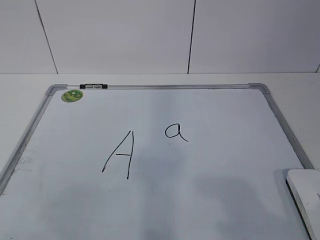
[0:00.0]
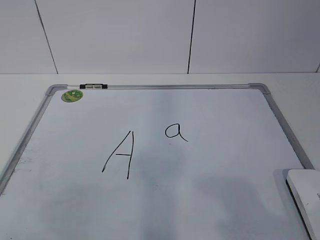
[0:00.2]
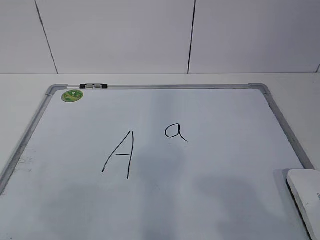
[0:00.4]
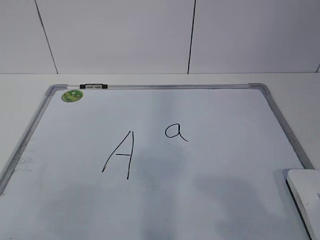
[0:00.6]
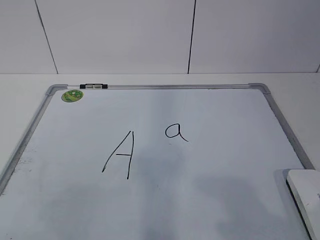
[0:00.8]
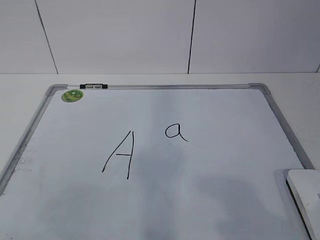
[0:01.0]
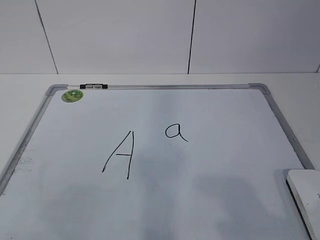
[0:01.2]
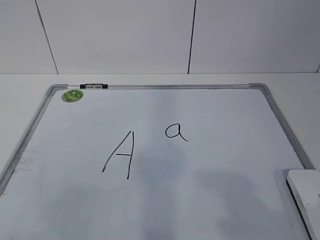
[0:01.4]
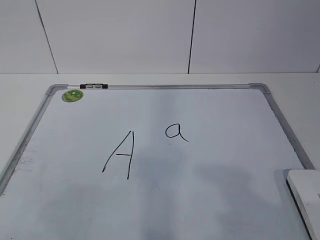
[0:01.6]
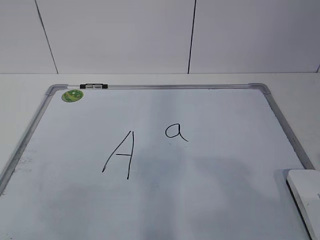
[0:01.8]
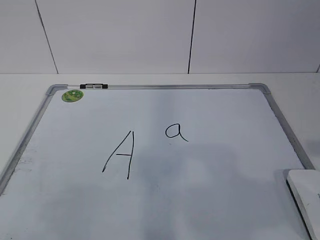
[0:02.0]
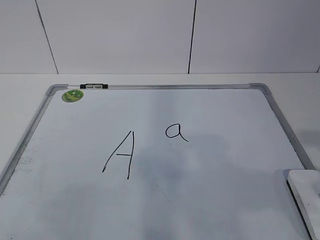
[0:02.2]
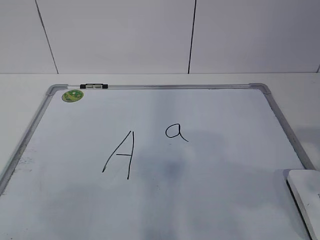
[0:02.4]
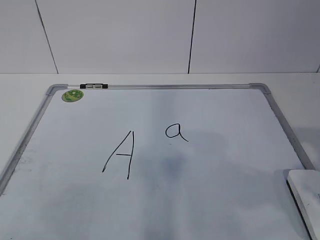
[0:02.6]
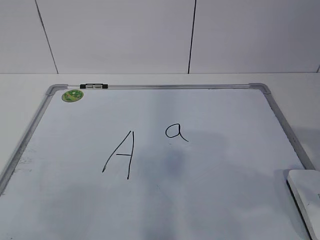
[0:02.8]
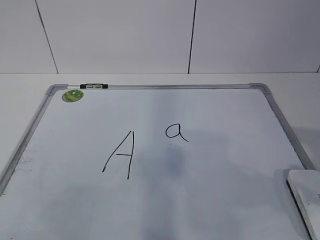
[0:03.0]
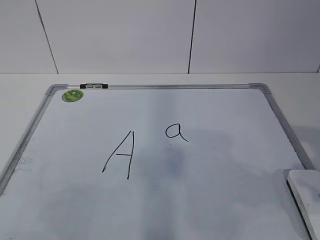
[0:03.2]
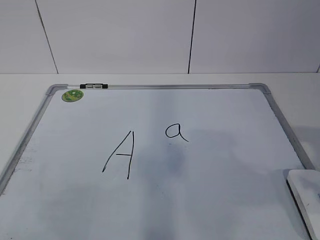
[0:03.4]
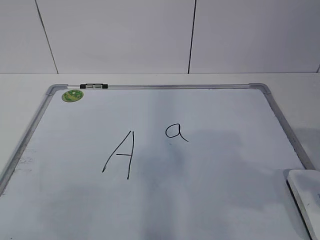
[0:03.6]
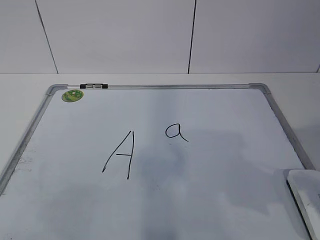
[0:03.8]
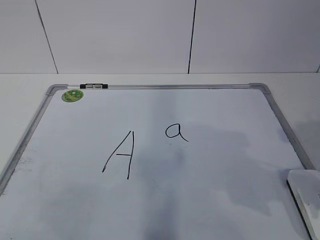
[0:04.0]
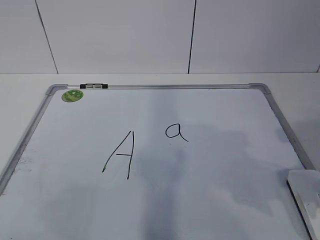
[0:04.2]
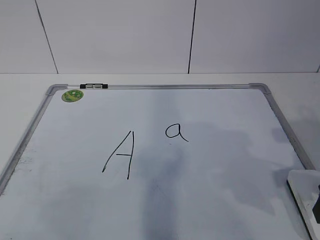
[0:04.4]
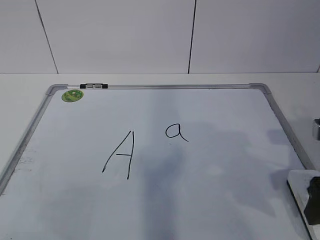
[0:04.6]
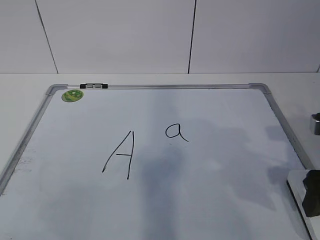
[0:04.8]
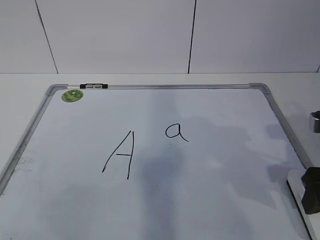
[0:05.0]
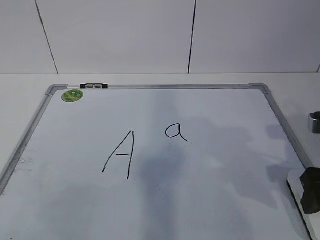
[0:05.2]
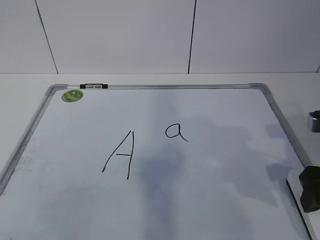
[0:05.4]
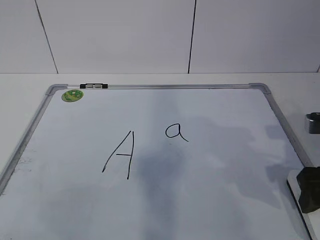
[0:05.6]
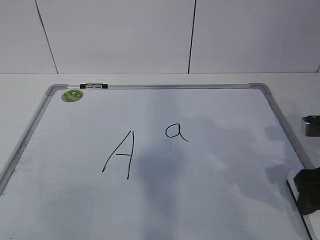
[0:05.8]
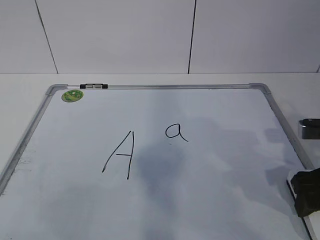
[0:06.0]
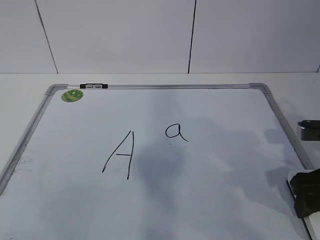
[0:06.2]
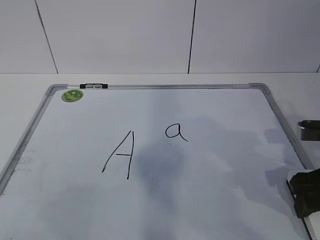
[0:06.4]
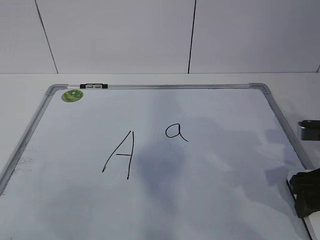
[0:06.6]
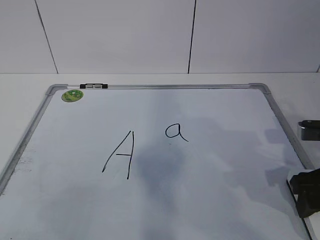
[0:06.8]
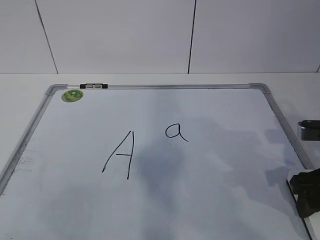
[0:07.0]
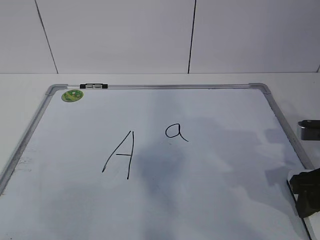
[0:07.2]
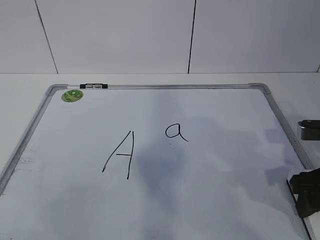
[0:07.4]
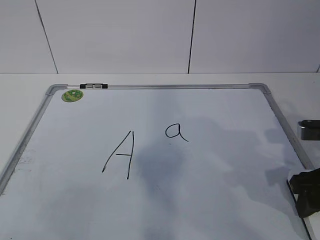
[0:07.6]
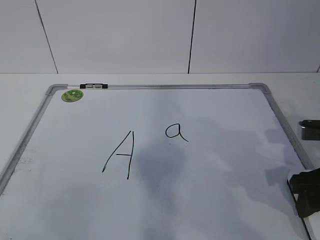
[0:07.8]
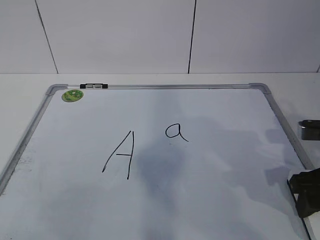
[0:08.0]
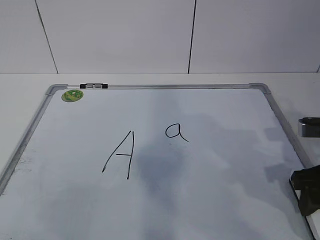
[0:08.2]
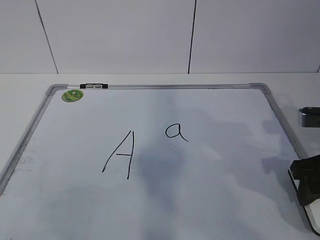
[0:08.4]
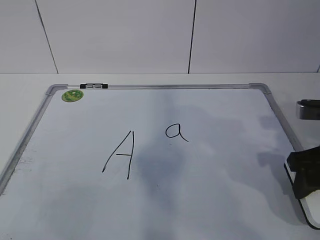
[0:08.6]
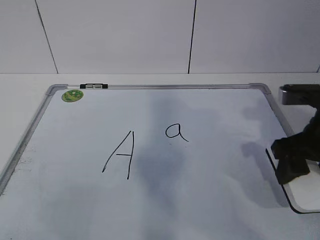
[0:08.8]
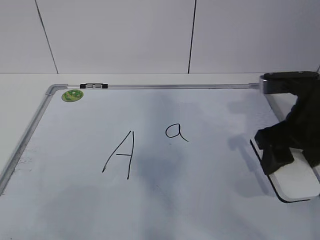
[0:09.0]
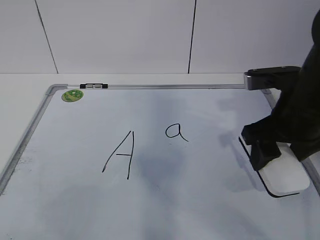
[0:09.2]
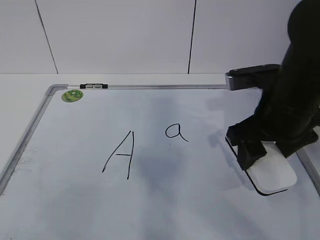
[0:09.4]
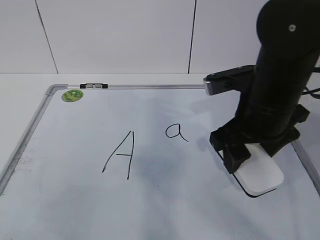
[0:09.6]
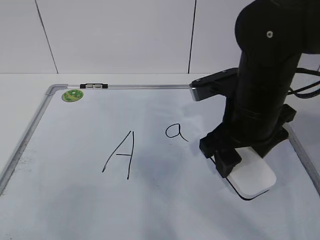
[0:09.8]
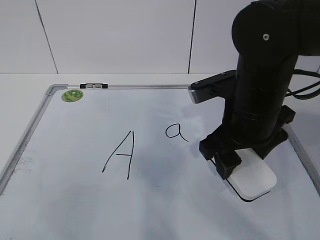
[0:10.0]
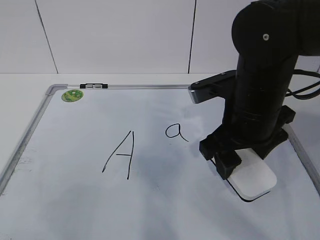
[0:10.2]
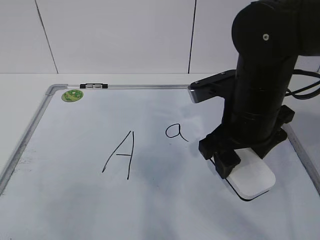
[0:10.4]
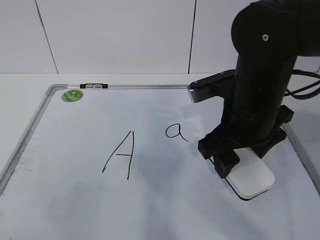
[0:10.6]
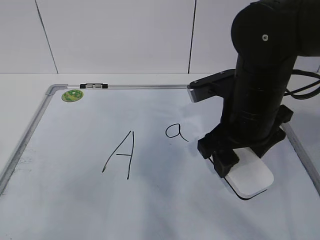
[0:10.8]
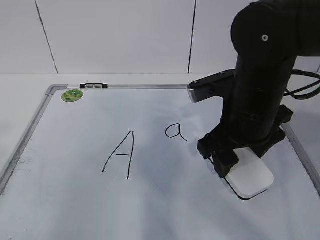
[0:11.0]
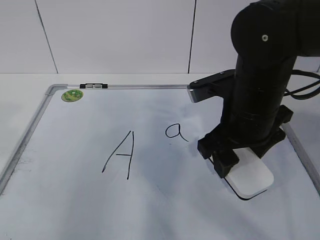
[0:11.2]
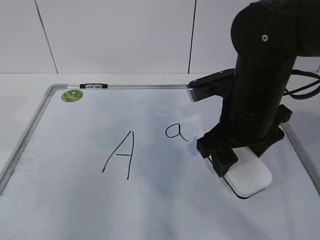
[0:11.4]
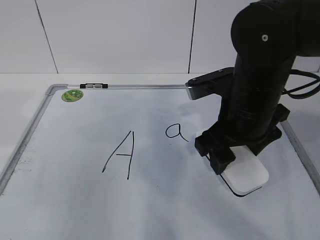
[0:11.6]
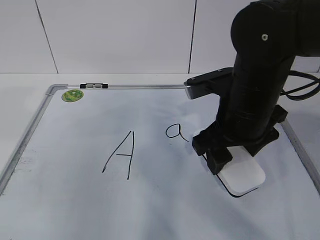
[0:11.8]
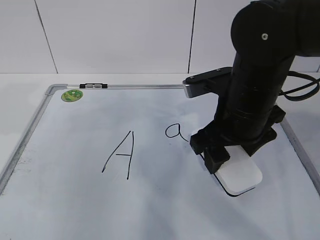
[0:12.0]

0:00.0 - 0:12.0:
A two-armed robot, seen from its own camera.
Task of the whole recording: pick up the eraser on the blackboard and erase the letter "a".
Step, 0:05.6 - 0:12.0: Hold the drawing board steady with your left hand.
0:04.4 - 0:06.0: The right gripper moves roughly 5 cm.
0:07.6 - 0:09.0: The right gripper is displaced upward and to the left by some 10 cm.
0:09.0 - 0:10.4: The right gripper is displaced to the left by about 10 cm.
0:10.4 - 0:12.0: The left gripper heads forward, covering some 25 cm.

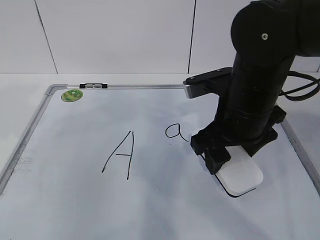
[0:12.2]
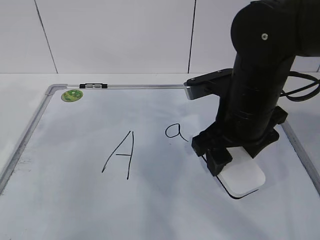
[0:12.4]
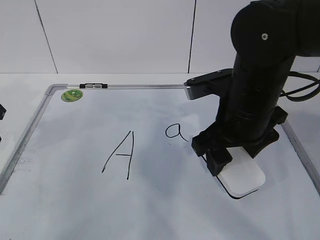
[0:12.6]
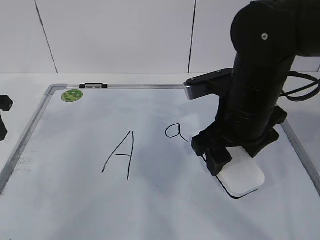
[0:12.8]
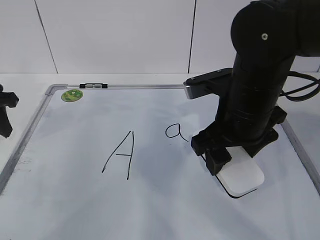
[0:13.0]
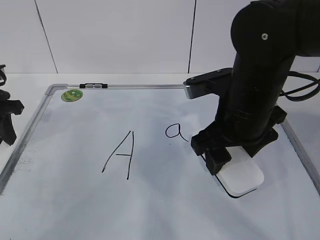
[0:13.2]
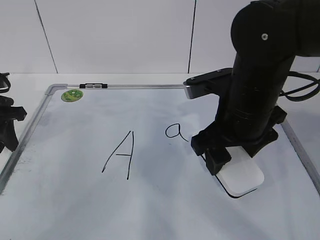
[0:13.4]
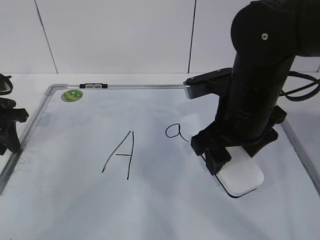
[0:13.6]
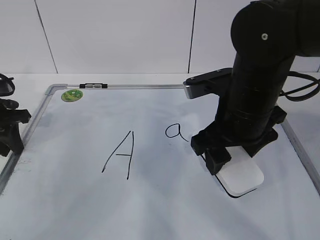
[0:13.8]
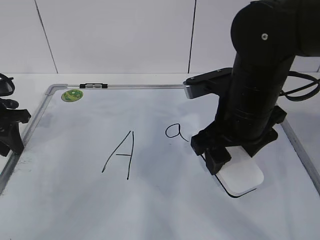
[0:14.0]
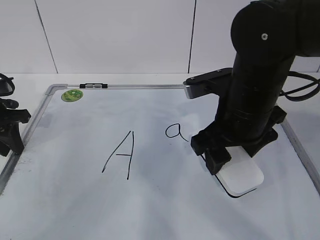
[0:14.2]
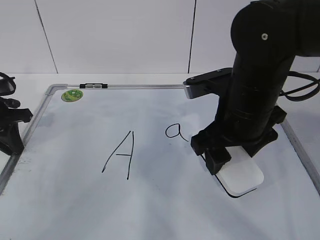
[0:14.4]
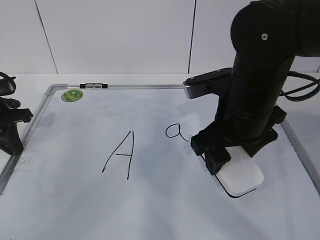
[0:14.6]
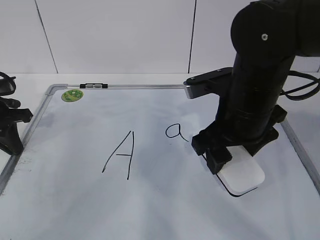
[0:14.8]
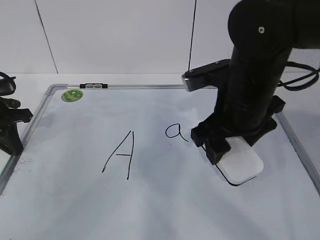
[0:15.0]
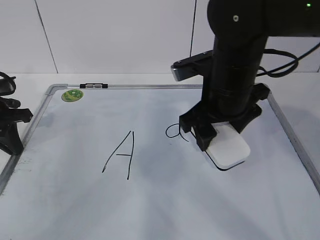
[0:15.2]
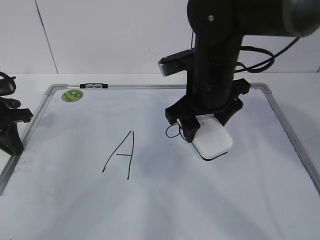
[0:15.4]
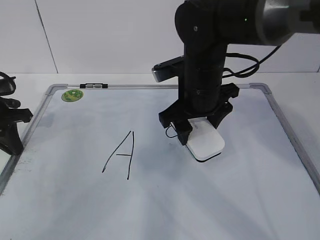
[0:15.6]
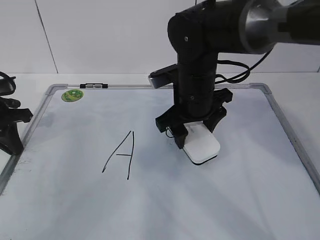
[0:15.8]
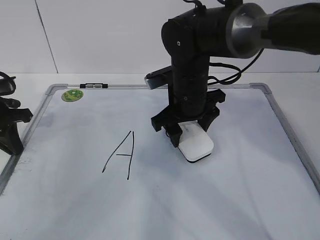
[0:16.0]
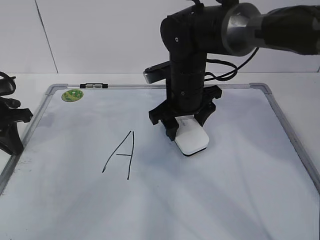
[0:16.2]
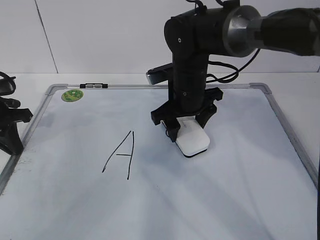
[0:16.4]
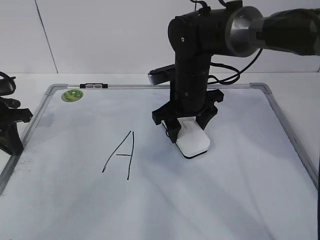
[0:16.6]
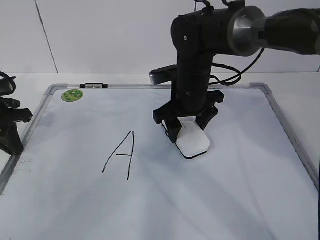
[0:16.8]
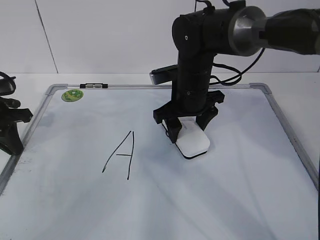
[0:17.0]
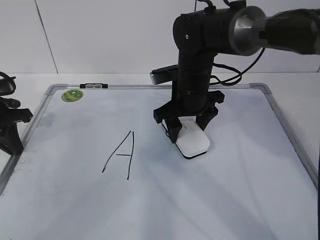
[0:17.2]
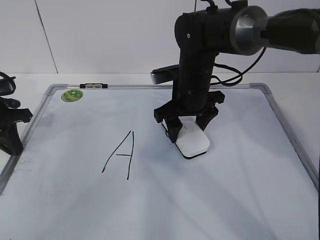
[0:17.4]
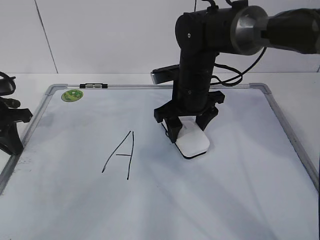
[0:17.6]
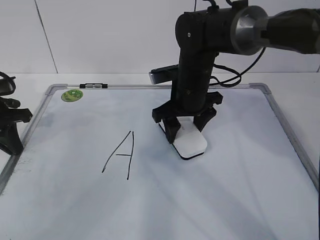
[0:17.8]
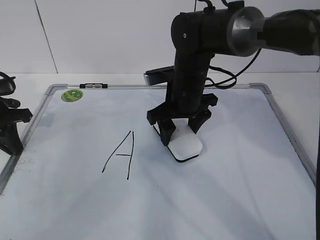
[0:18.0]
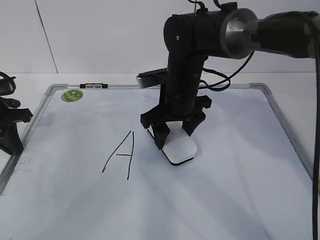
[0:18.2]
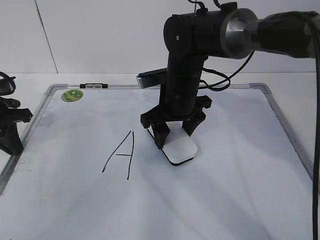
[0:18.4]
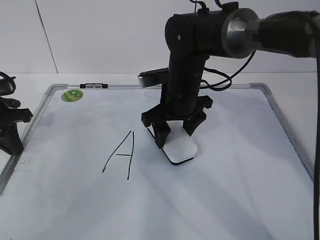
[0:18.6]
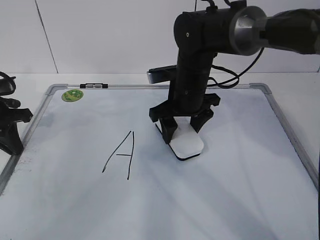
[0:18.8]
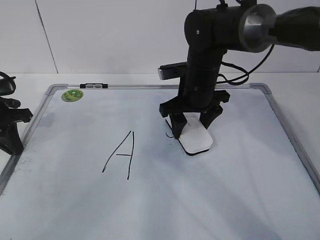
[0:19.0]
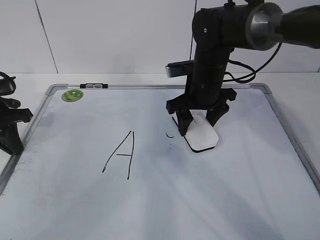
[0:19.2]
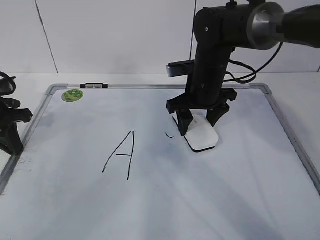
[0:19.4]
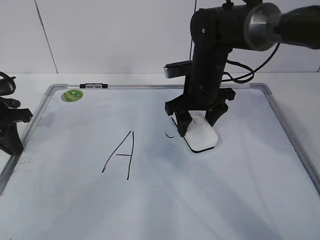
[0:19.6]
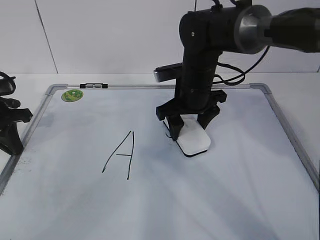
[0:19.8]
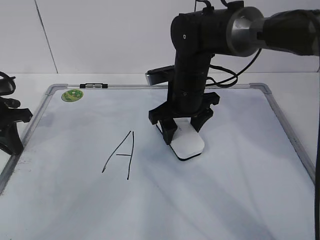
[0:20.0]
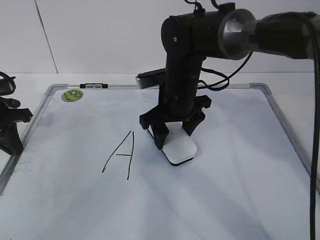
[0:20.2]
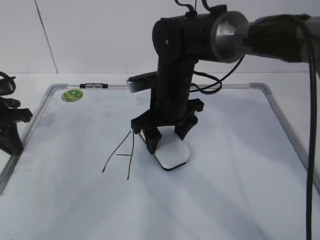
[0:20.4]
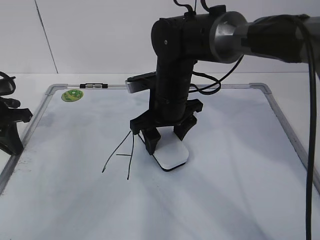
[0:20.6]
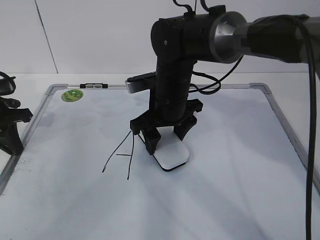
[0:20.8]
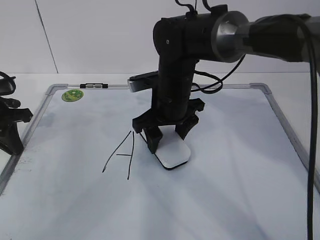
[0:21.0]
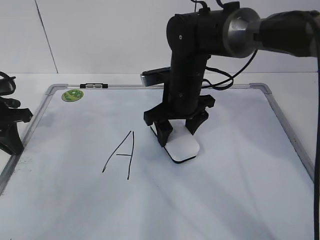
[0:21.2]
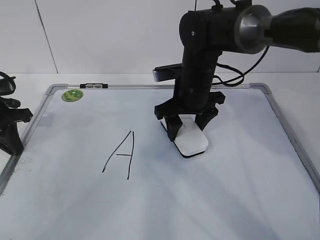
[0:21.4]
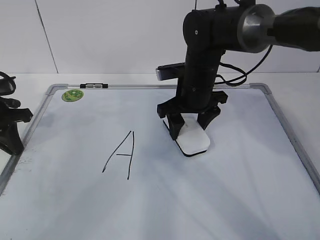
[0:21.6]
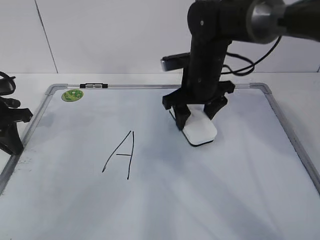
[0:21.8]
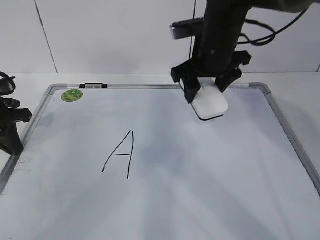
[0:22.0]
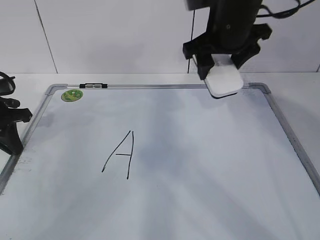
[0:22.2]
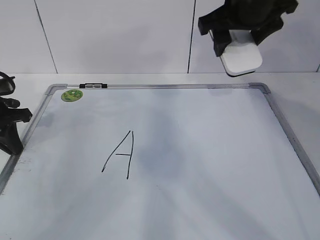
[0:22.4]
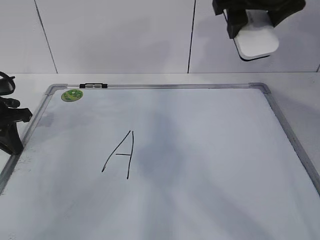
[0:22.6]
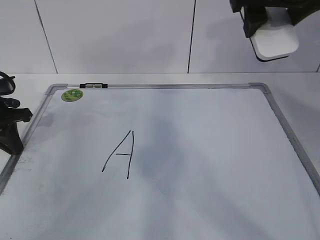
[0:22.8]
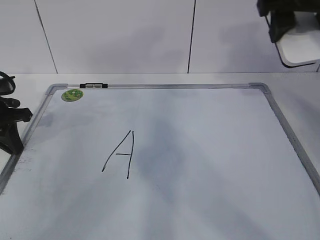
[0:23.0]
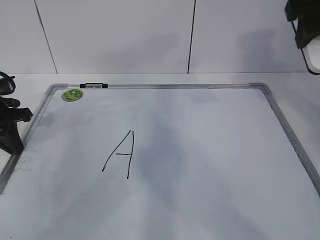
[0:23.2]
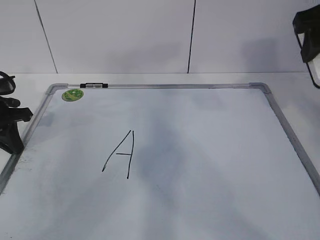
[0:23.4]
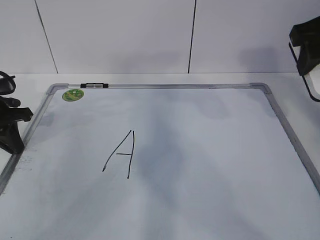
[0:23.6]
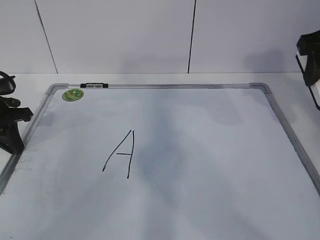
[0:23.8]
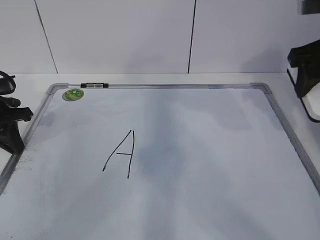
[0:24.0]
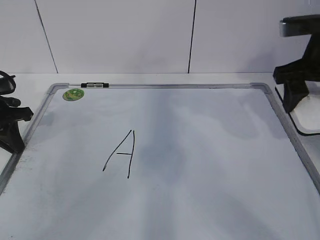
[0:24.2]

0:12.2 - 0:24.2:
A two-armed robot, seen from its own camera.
Task of the whole recording: pick up the eraser on the blackboard and erase the letter "a".
Step, 0:12.2 - 0:18.0: Erase the letter a with your right hand.
Step, 0:18.2 - 0:22.8: Put down the eraser with your right hand.
0:12.2 - 0:13.8: The left gripper is displaced downward and forward by approximately 15 cm.
0:13.8 - 0:15.2: The left gripper closes its fingers.
0:15.2 - 0:16.6: The right gripper travels forward and downward by approximately 10 cm.
0:16.6 - 0:18.2: The grippers make only small movements.
0:19.8 - 0:21.2: The grippers stay close to where they were, moving slightly.
0:21.2 - 0:22.6: The right gripper heads upward and to the right, covering about 20 cm.
0:22.6 - 0:24.2: The right gripper is displaced to the right and downward by approximately 15 cm.
